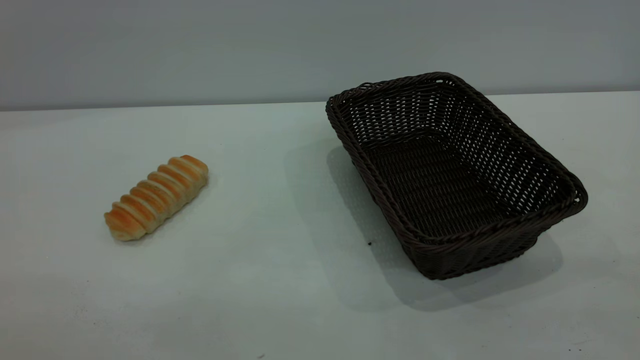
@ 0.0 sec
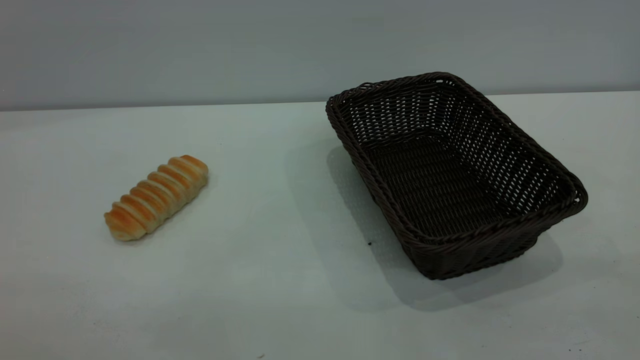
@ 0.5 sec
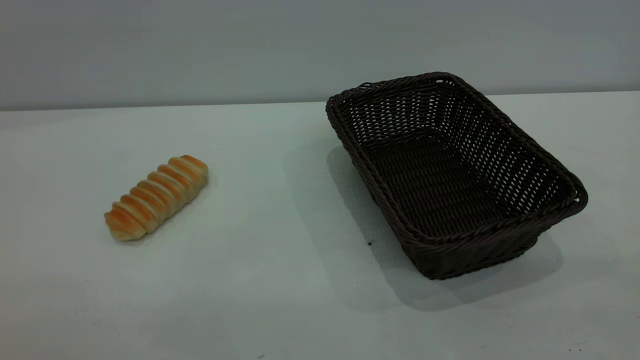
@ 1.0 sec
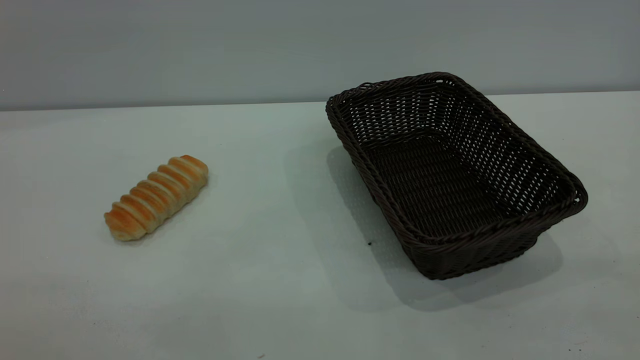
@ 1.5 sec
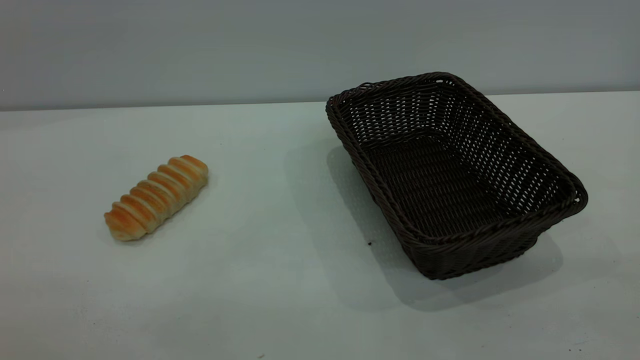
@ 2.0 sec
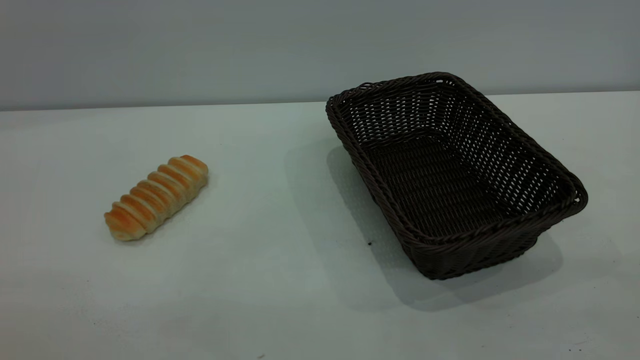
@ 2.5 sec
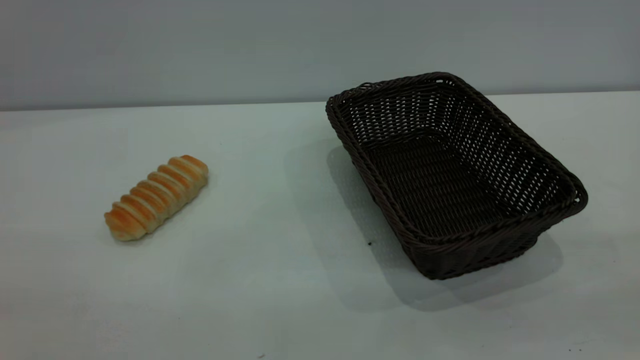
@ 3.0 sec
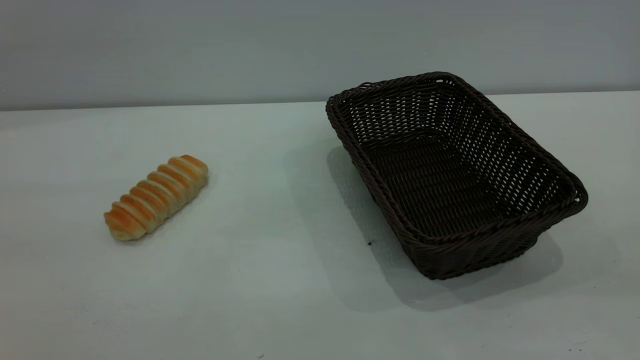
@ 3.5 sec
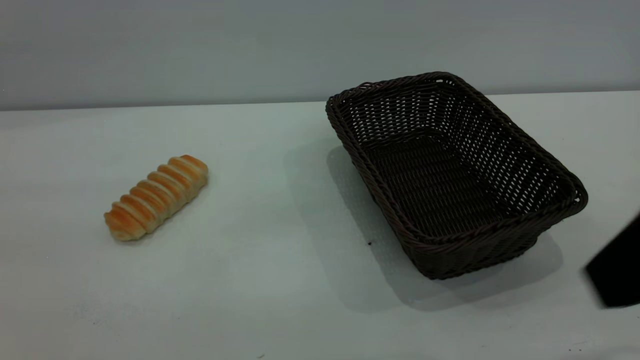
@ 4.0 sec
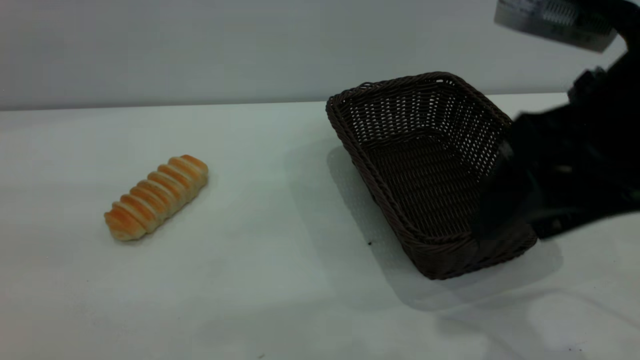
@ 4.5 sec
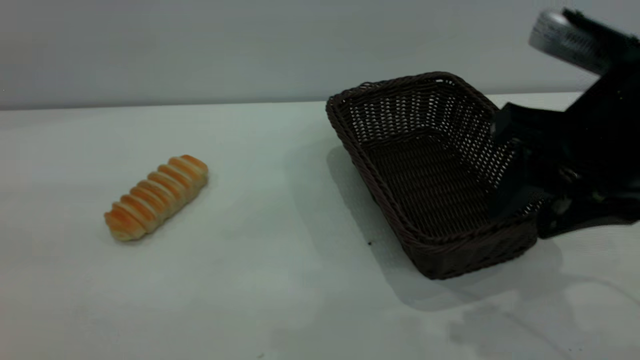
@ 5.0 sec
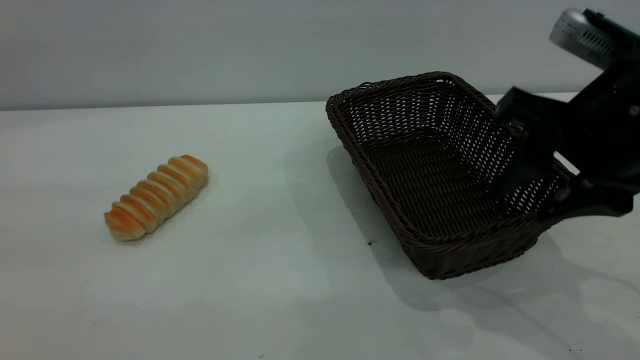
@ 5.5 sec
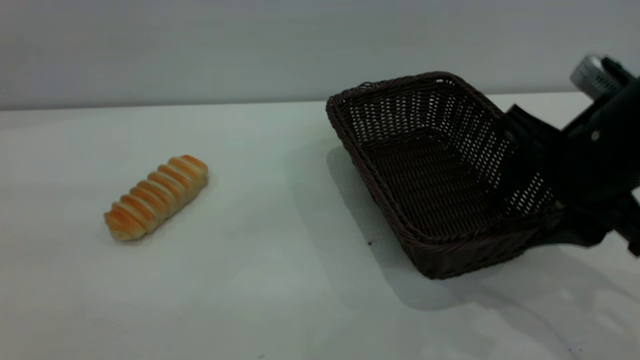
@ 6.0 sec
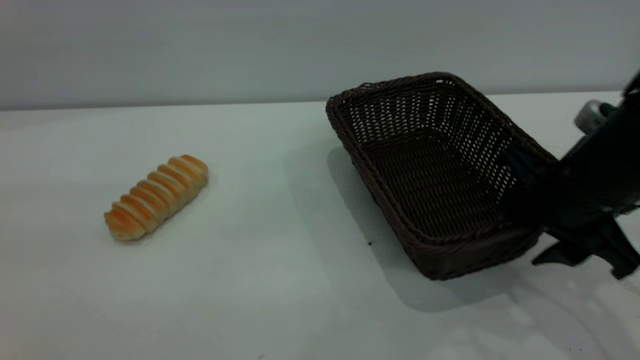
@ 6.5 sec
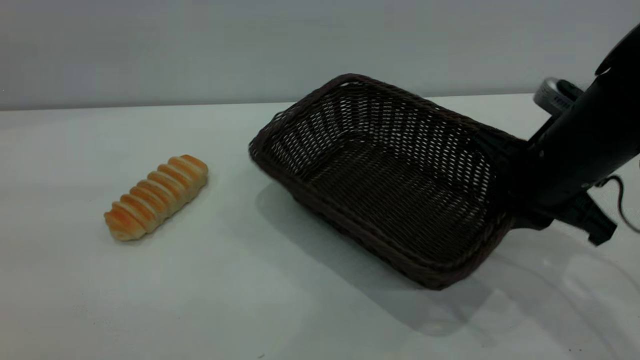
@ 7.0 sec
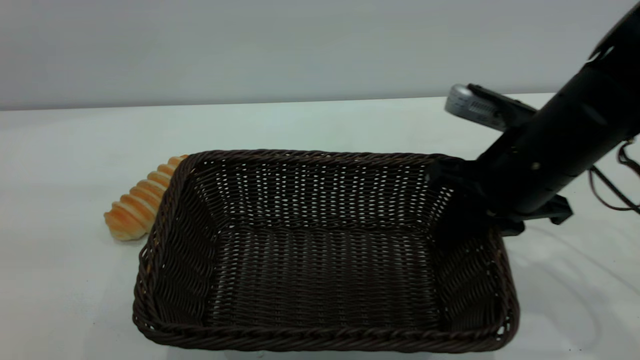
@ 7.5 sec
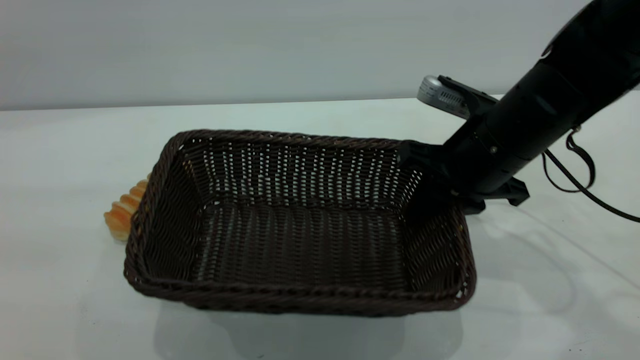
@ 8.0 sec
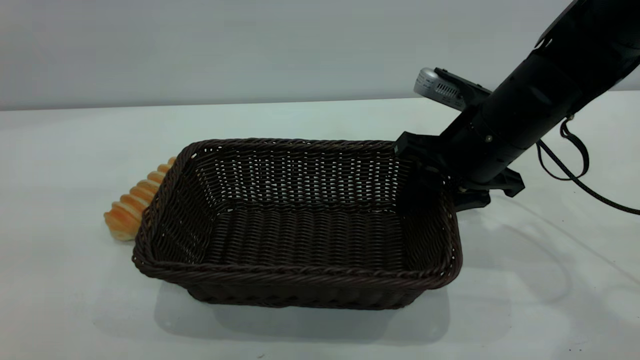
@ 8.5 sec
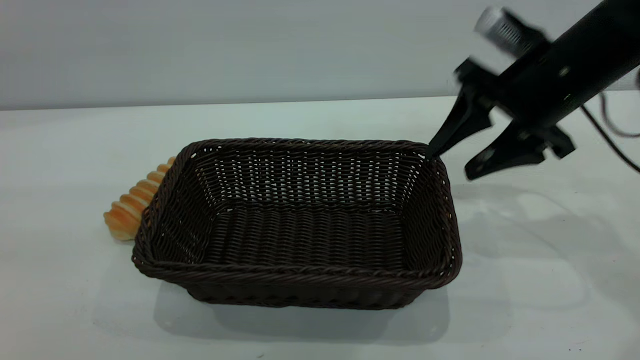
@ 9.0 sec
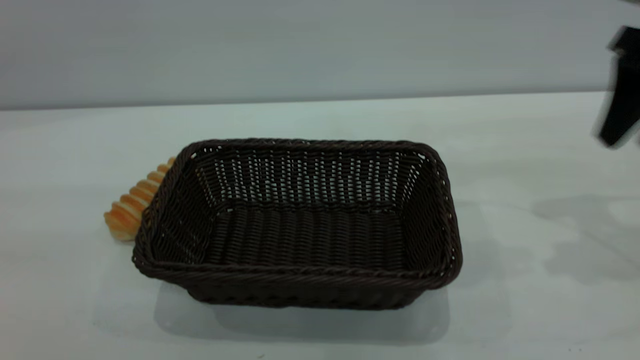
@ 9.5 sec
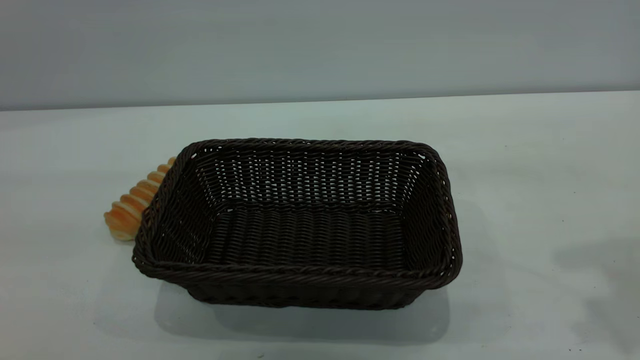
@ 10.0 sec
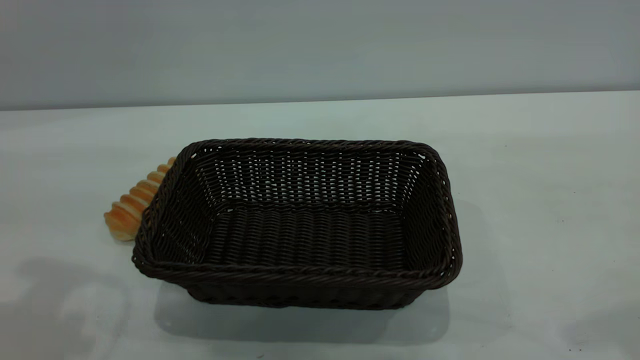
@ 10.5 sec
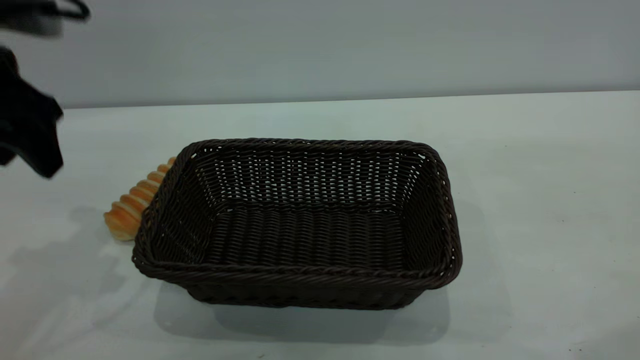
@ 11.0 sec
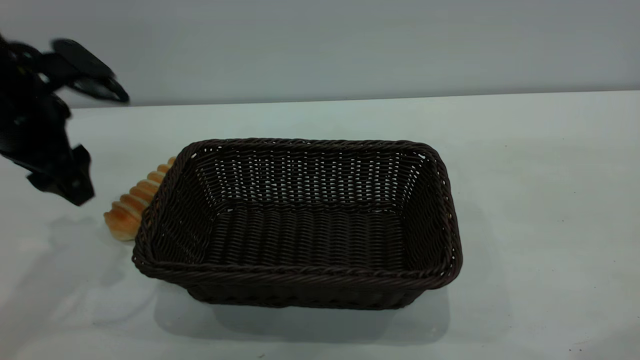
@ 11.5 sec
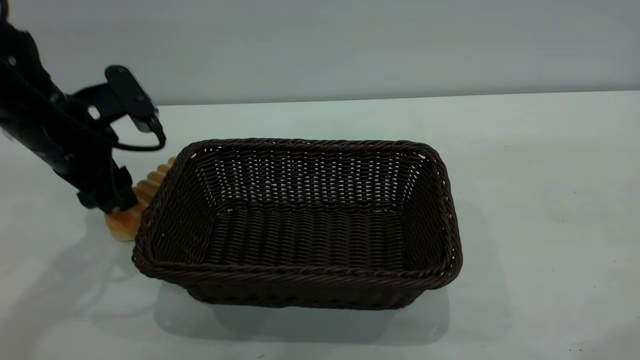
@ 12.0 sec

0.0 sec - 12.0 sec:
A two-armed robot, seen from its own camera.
Task of the whole recording: One hand grasps the black basket and places it in the middle of the table, while the other hand picks up the long bread and puts it into the black basket.
Step, 0.0 sec - 9.0 sec: Move the basket to the center of view.
0.0 sec - 2.0 sec: Both grippers stay put.
2.0 sec - 4.0 sec: The right gripper moves forward and to the left, approximately 20 cm.
4.0 sec - 6.0 sec: The right gripper goes about 15 cm forward and downward.
6.0 sec - 8.0 sec: The right gripper moves forward, approximately 10 cm, and closes its fingers.
8.0 sec - 10.0 sec: The right gripper shifts about 30 cm upward, to the right and backward, and opens its fingers. The left gripper is displaced forward by about 5 cm.
10.0 sec - 12.0 sec: The left gripper moves forward and downward, approximately 30 cm. The right gripper heads backward, covering about 10 cm.

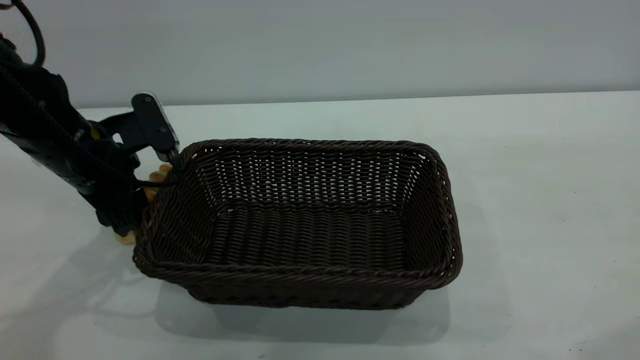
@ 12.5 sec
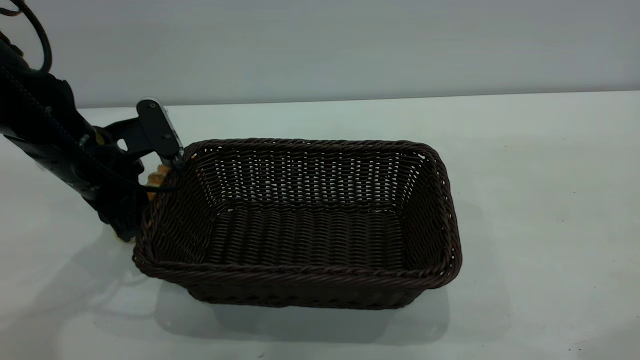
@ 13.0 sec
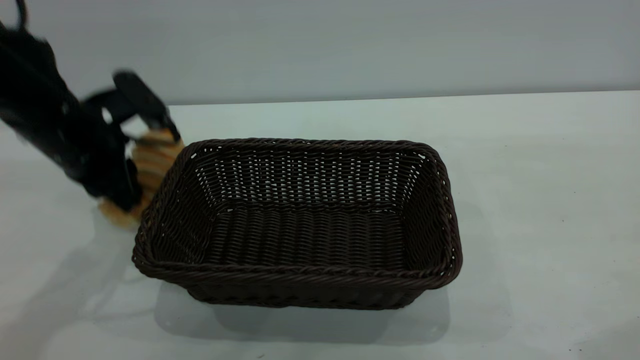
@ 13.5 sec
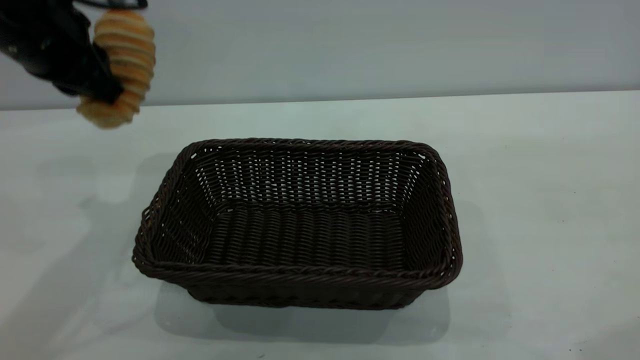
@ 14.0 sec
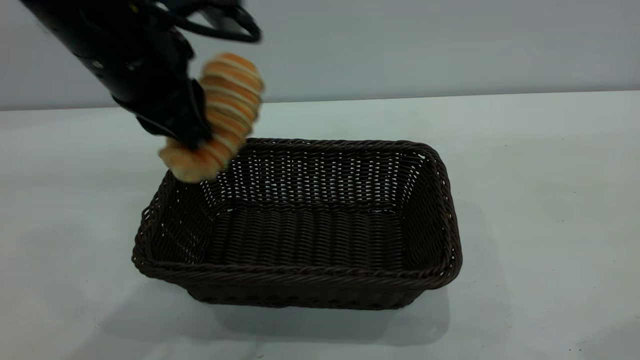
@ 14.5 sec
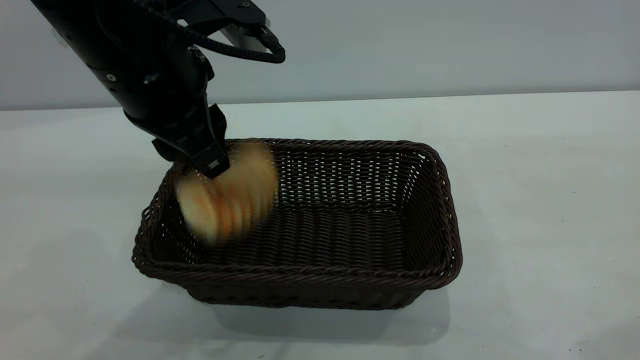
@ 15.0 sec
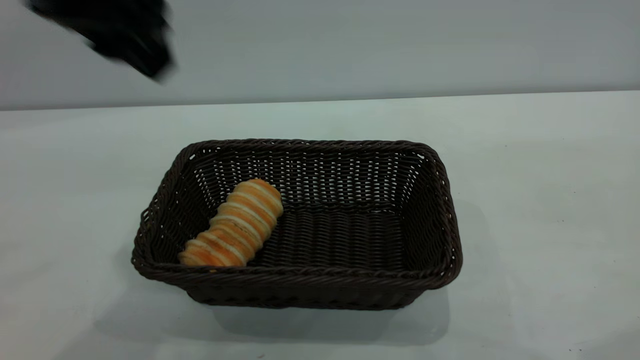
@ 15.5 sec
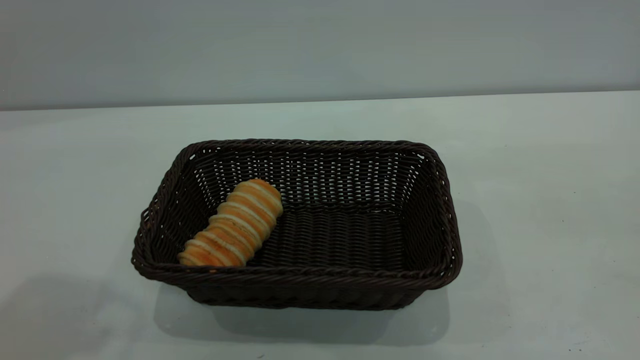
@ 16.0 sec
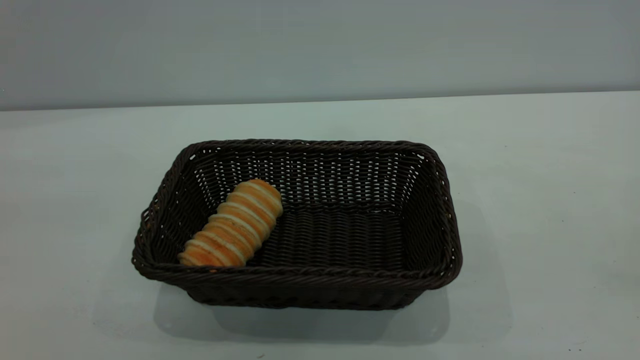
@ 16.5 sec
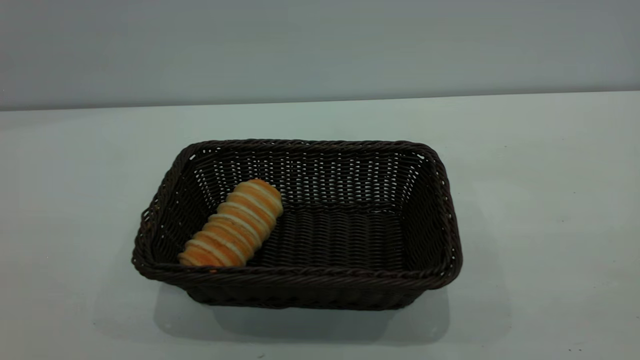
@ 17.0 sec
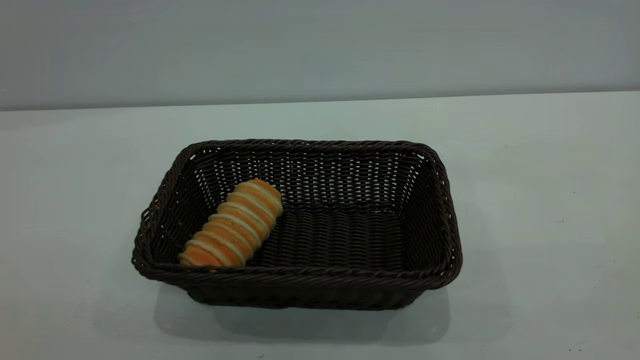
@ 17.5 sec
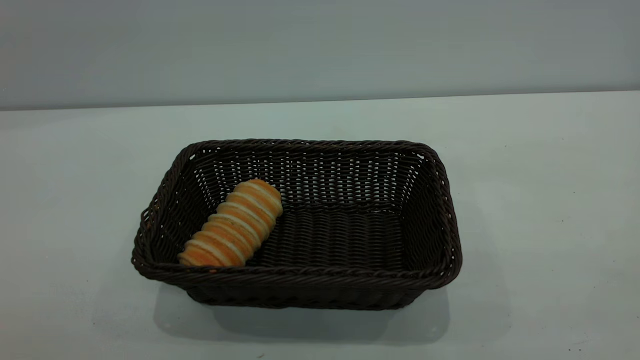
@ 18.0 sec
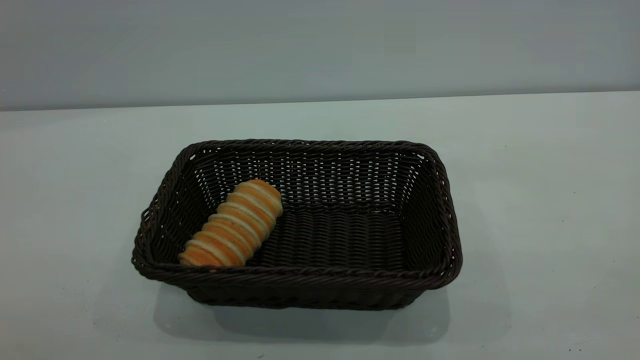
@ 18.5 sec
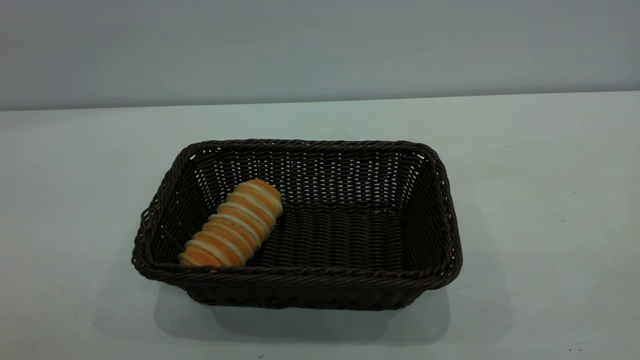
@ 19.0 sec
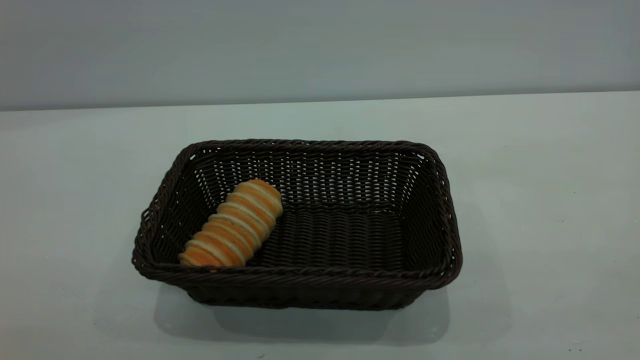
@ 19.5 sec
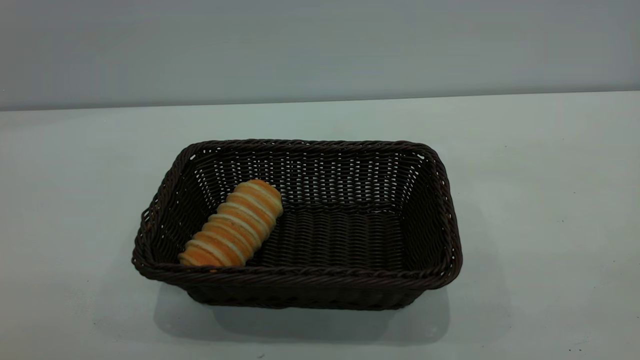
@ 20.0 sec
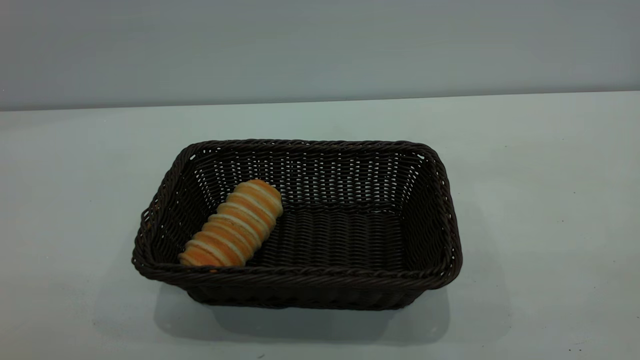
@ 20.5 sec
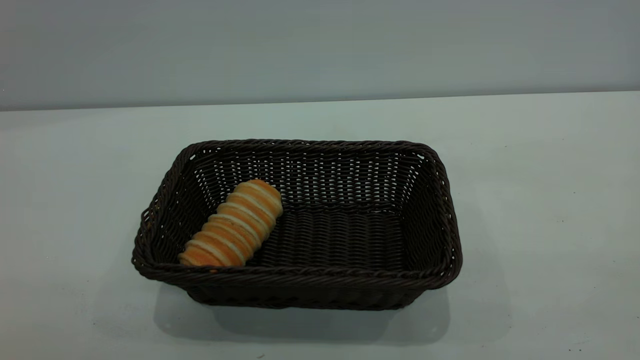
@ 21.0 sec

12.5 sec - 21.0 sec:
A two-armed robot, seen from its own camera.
Task of the whole recording: One hand grasps the black basket and places it in the middle of the table, while the other hand picks up the long bread and puts it into the black basket.
Step, 14.0 sec - 15.0 sec: place the bread into the basket.
12.5 sec - 14.5 sec: The left gripper moves upward, to the right and backward, approximately 20 cm, and closes up.
14.5 sec - 16.5 sec: The left gripper heads backward, upward and to the left, covering about 30 cm, and opens. Meanwhile the right gripper goes some 15 cm backward.
